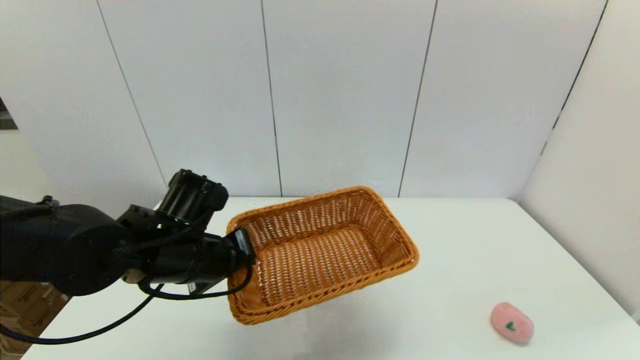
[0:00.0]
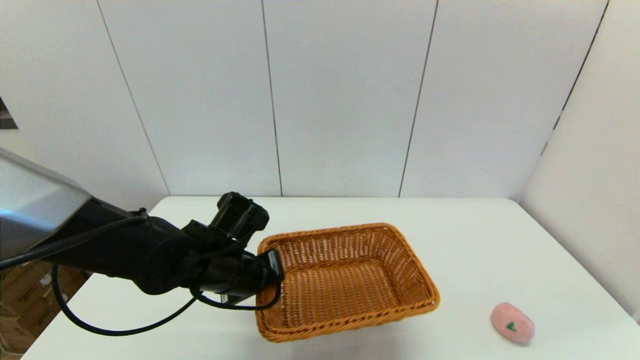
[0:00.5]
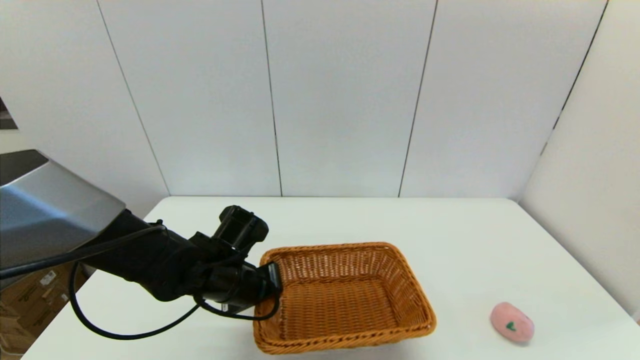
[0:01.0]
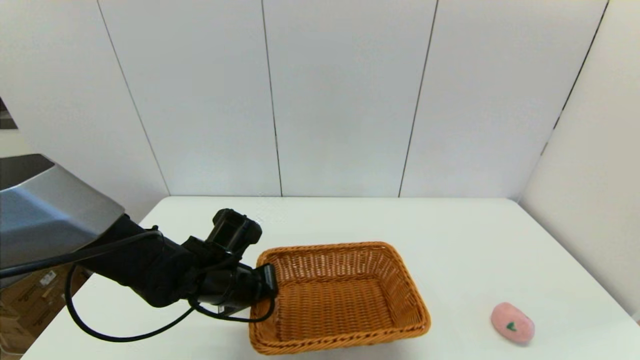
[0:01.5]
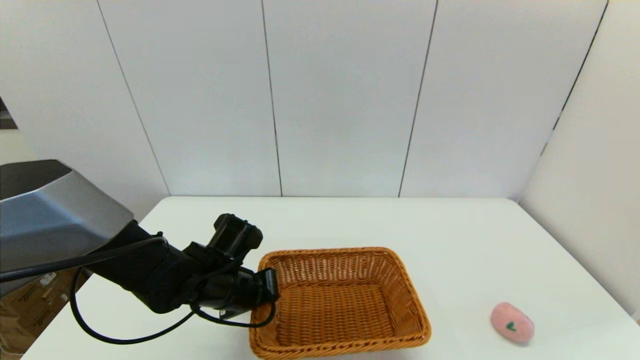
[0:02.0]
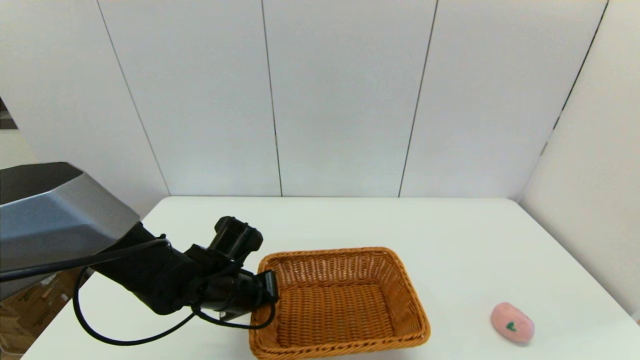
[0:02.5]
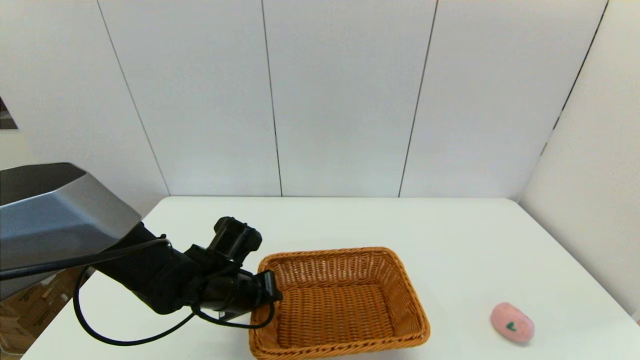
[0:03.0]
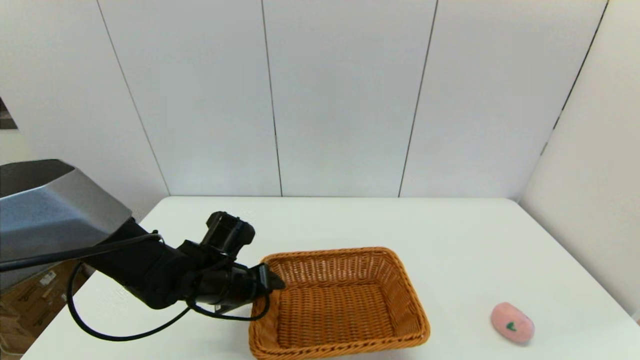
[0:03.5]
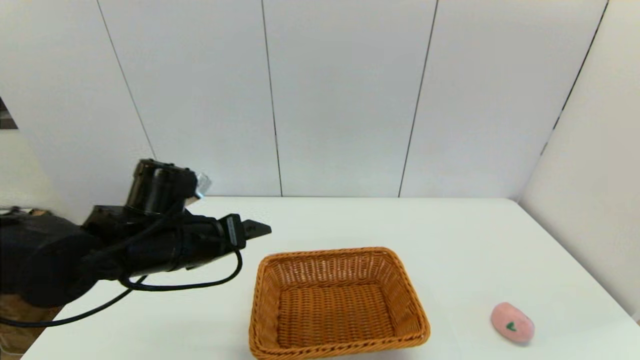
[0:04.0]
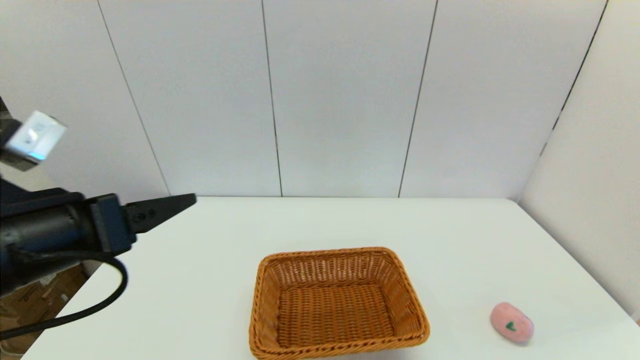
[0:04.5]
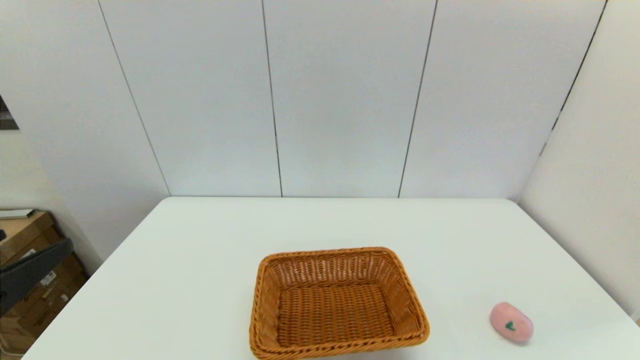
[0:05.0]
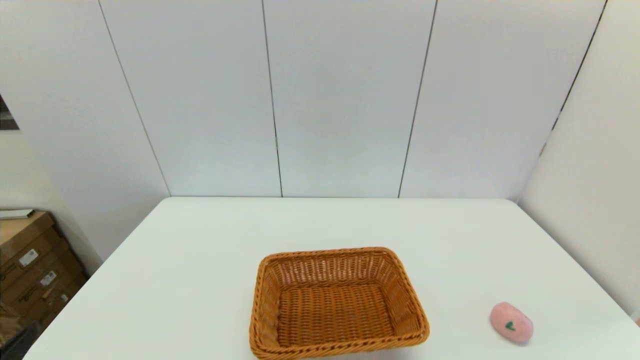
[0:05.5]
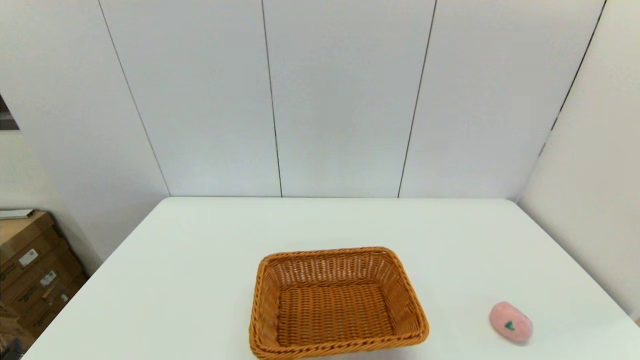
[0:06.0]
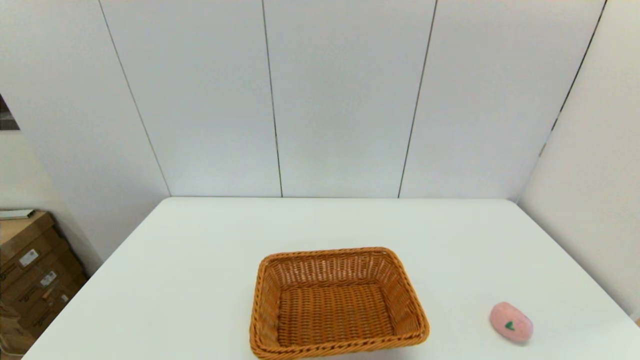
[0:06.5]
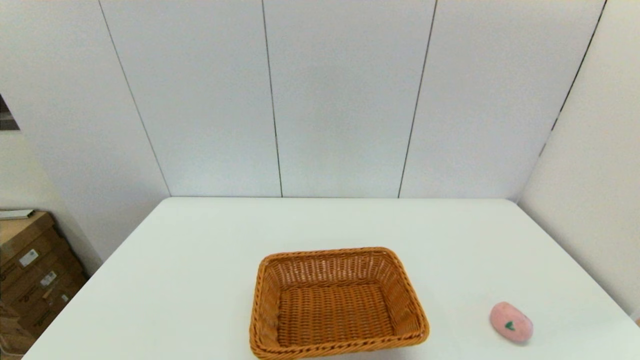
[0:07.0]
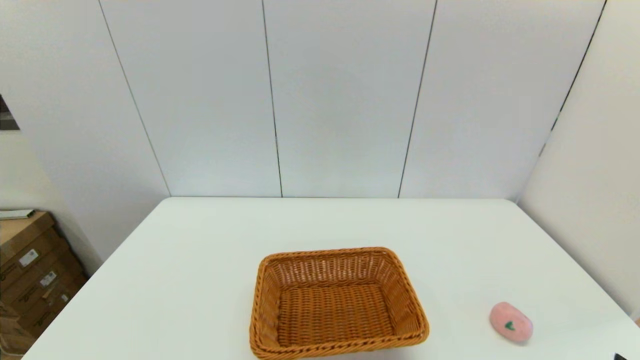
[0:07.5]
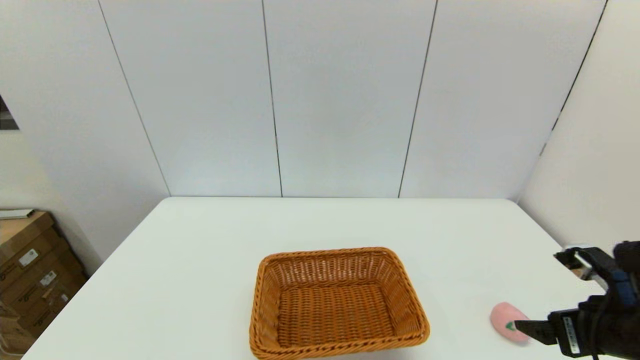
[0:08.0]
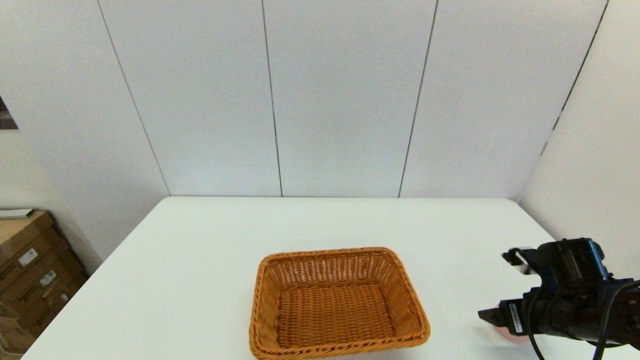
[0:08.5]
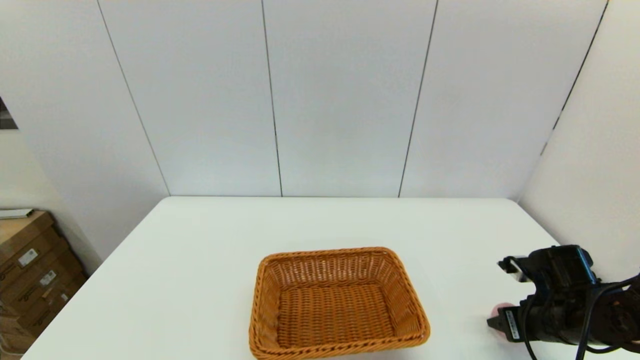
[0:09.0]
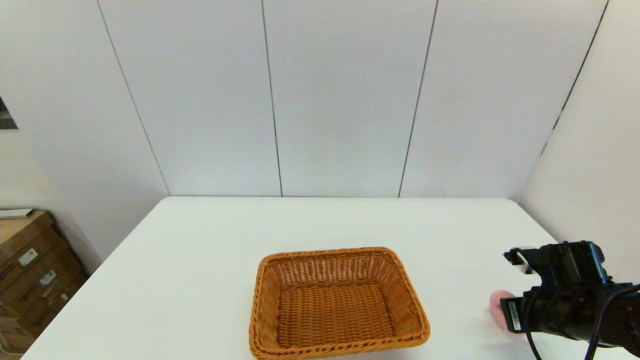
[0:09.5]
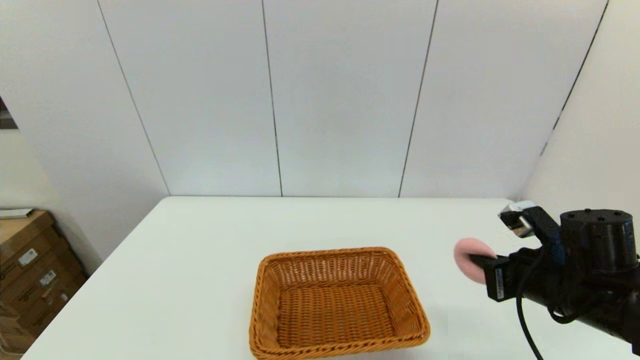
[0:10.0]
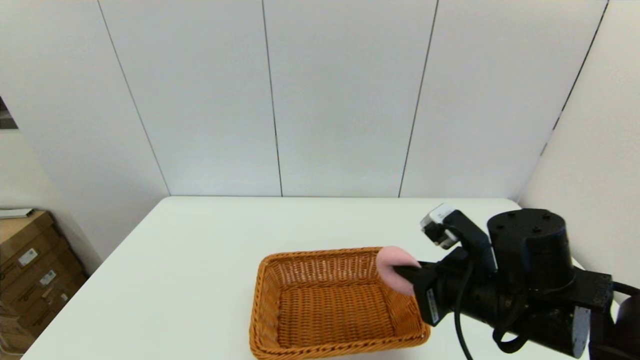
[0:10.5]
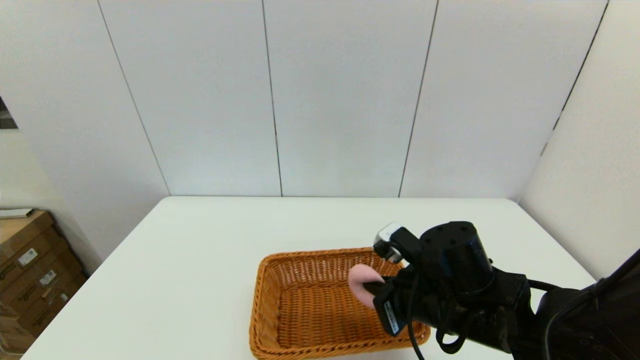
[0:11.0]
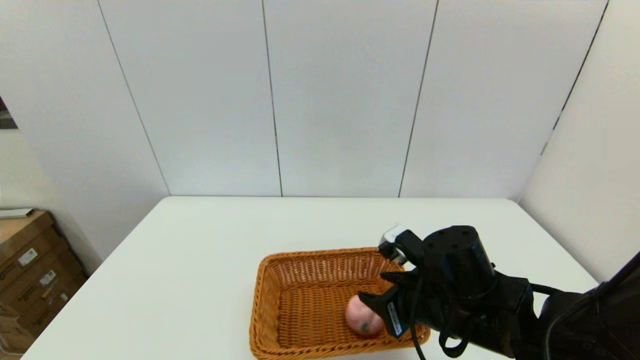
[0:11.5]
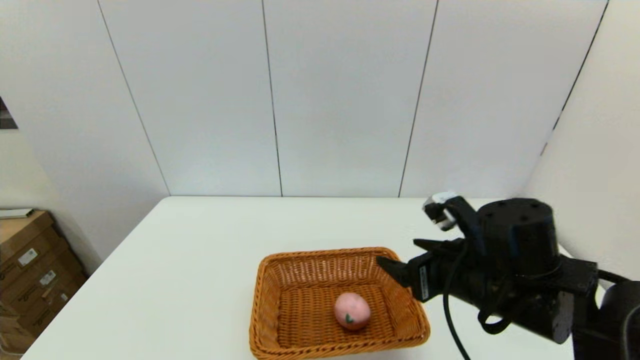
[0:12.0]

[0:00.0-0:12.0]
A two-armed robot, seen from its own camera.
Step, 0:00.0 to 0:03.0: Place the light basket on the middle of the table with the left gripper.
Step, 0:03.5 to 0:09.0: Grasp the peach with the right gripper.
Step, 0:09.5 to 0:11.0: Place the peach into the light basket with the right gripper.
0:00.0 to 0:02.0: The left gripper travels downward by approximately 10 cm.
0:02.0 to 0:04.0: The left gripper is displaced upward by some 10 cm, and opens up.
0:04.0 to 0:06.0: The left gripper travels backward and to the left by some 30 cm.
0:06.0 to 0:08.0: The right gripper travels forward by about 20 cm.
0:08.0 to 0:10.0: The right gripper shifts roughly 5 cm to the left, goes downward and returns, approximately 10 cm each way, and closes its fingers.
0:10.0 to 0:12.0: The right gripper goes some 10 cm to the left, and opens its fingers.

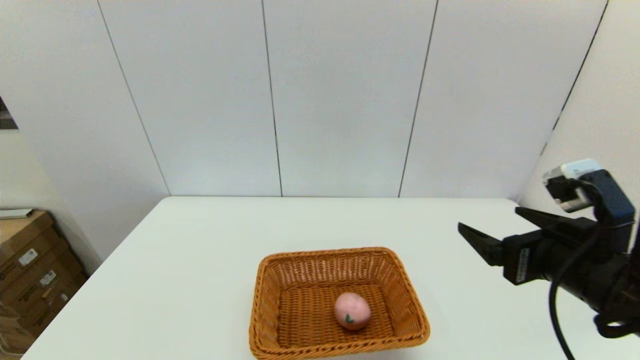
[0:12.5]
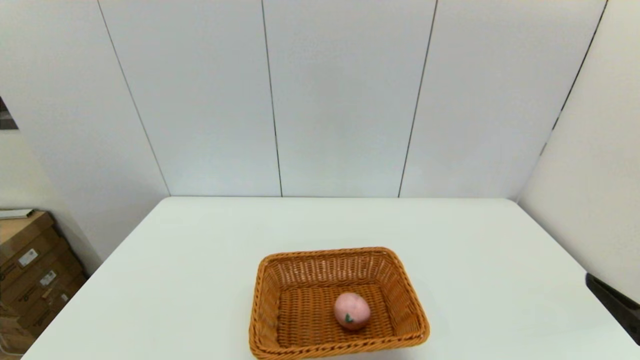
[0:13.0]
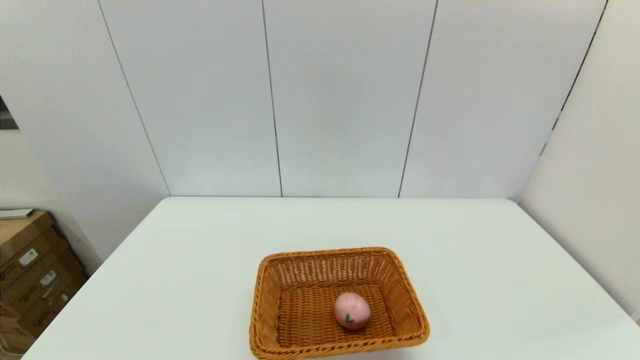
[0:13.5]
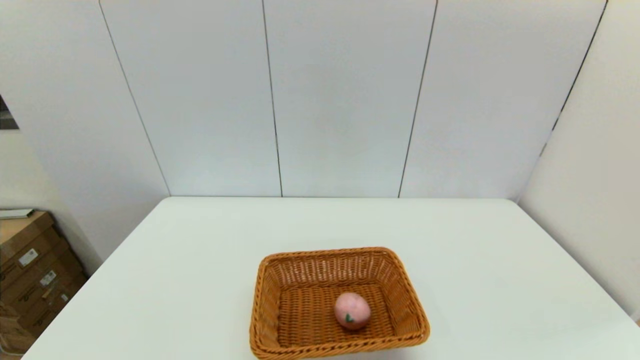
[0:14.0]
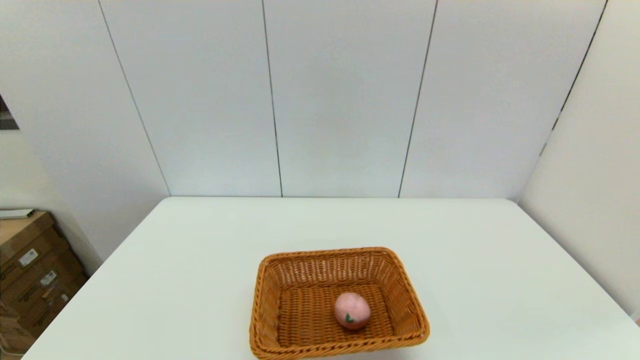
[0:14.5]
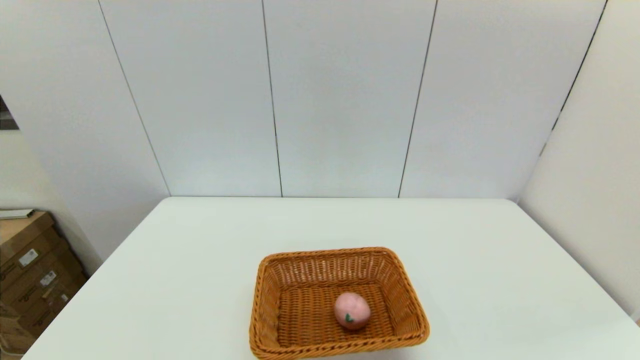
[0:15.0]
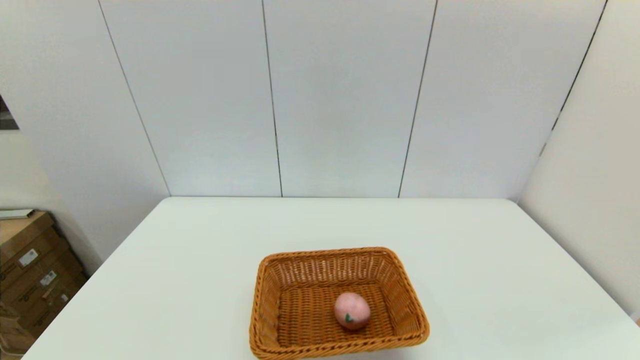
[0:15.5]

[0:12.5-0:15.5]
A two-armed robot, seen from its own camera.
0:12.5 to 0:14.0: The right gripper shifts about 20 cm backward and to the right.

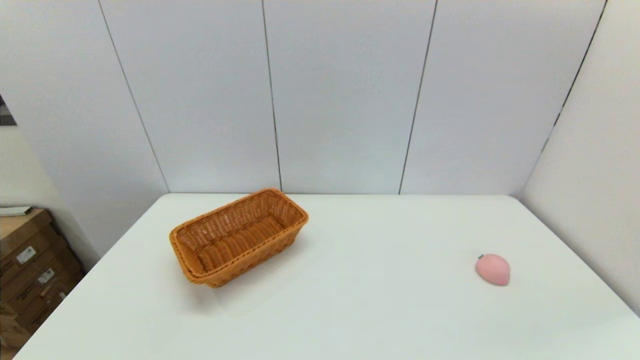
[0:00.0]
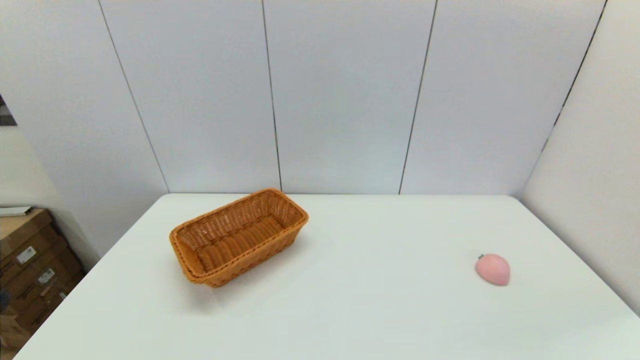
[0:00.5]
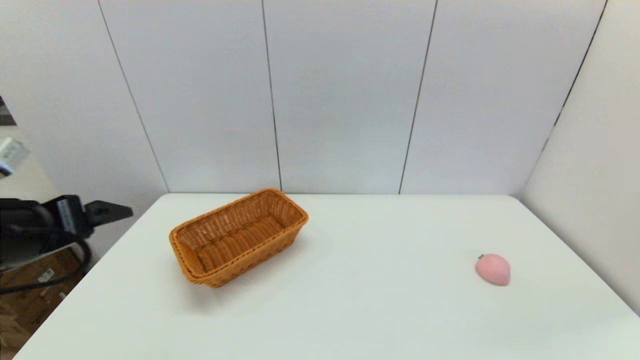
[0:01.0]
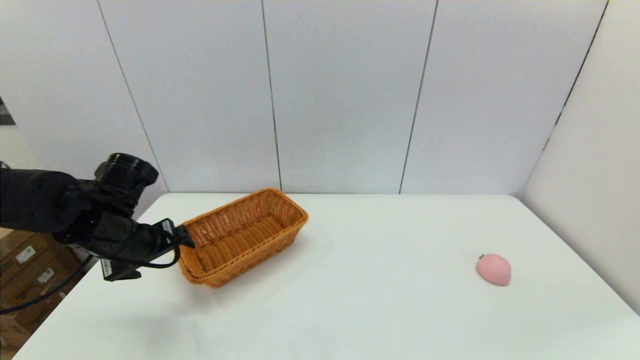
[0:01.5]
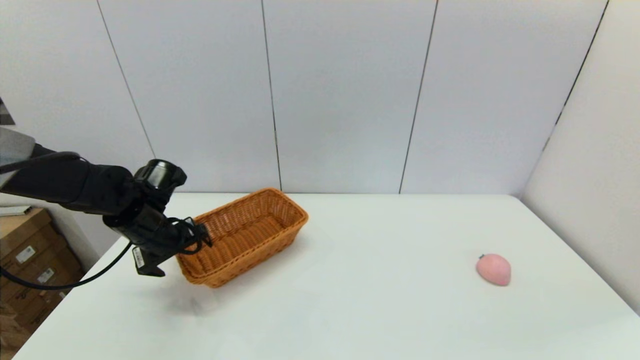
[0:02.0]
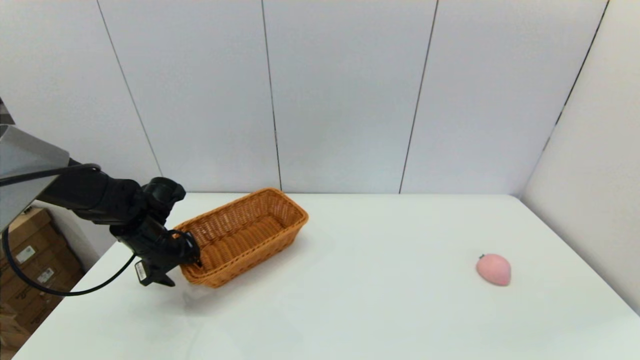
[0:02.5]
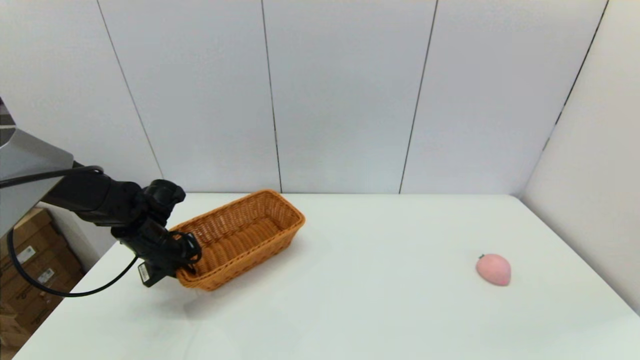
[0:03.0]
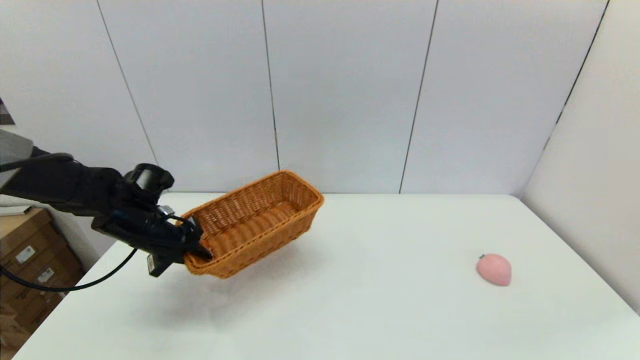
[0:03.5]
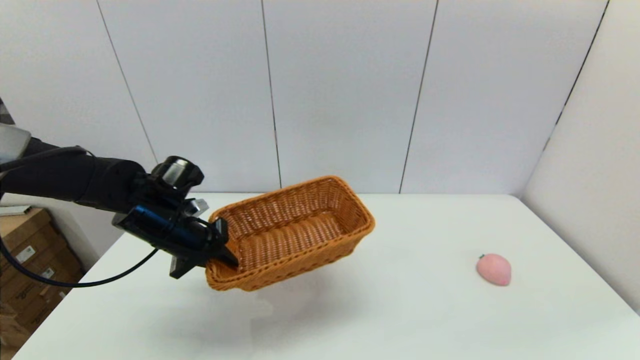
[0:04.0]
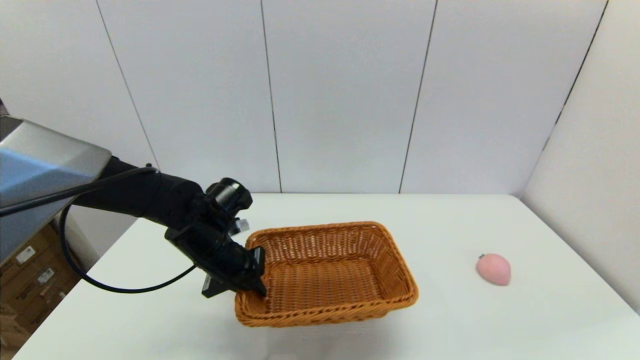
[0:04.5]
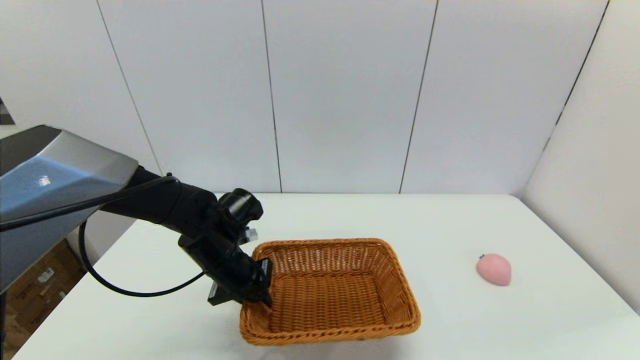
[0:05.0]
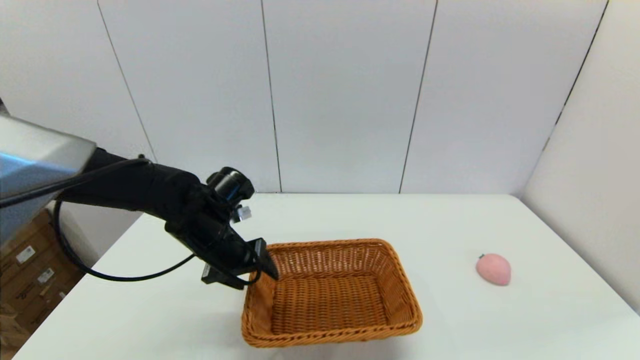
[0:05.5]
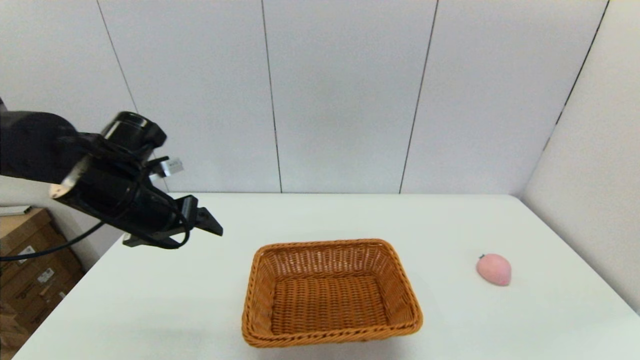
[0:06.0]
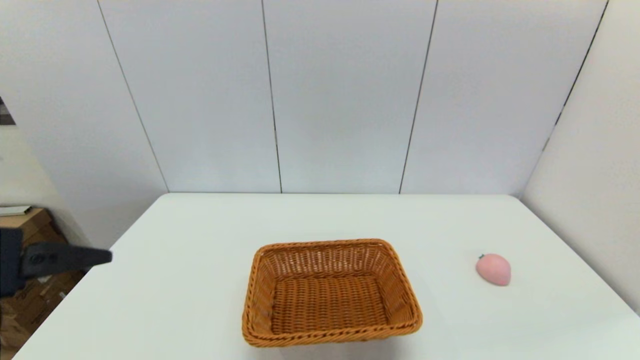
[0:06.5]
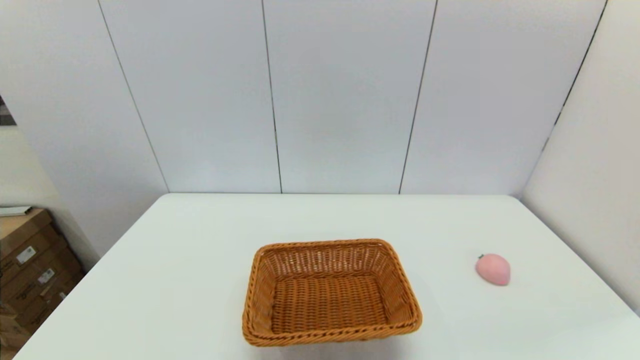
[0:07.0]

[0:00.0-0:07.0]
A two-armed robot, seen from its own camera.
Step, 0:00.0 to 0:02.5: Grasp the light basket with the left gripper.
Step, 0:03.0 to 0:05.0: Place the light basket on the middle of the table with the left gripper.
0:00.0 to 0:02.0: The left gripper shifts some 35 cm forward.
0:02.0 to 0:03.5: The left gripper closes its fingers.
0:03.5 to 0:05.0: The left gripper is displaced to the right by approximately 15 cm.
0:05.0 to 0:07.0: The left gripper moves backward and to the left, approximately 35 cm, and opens.
